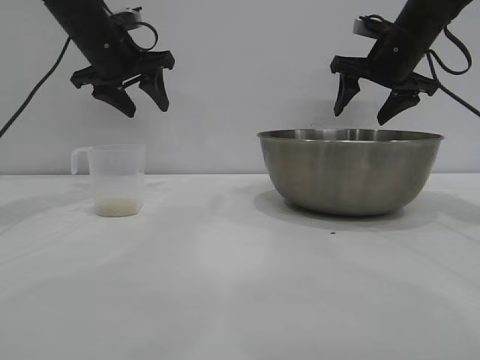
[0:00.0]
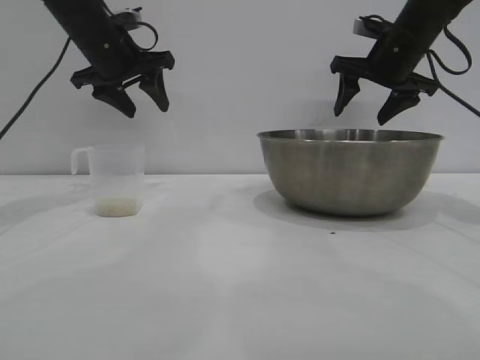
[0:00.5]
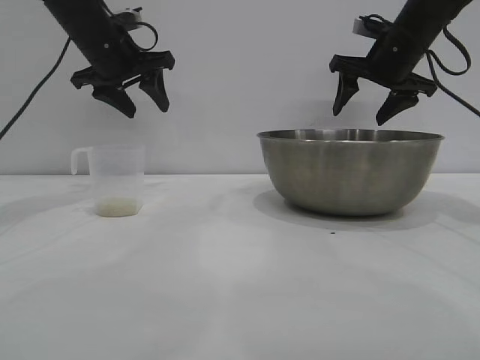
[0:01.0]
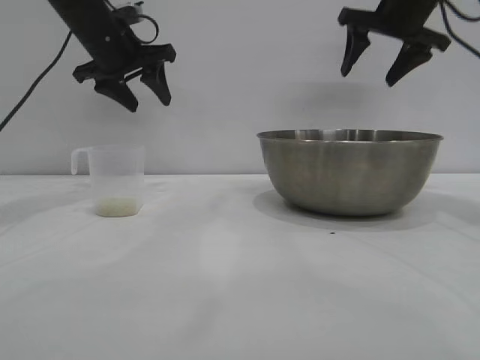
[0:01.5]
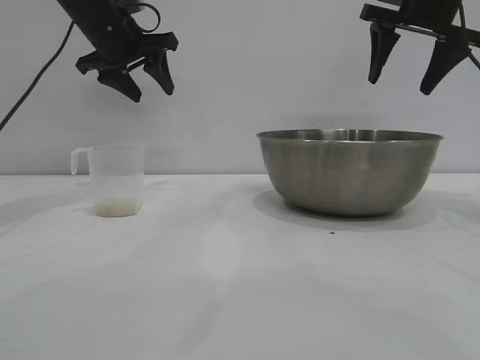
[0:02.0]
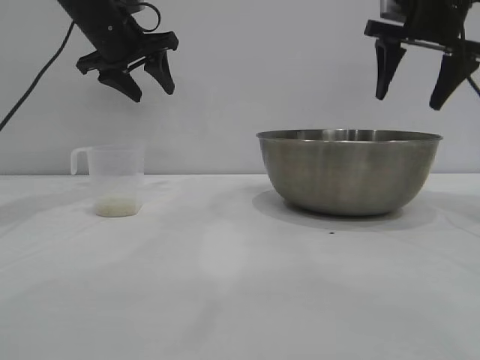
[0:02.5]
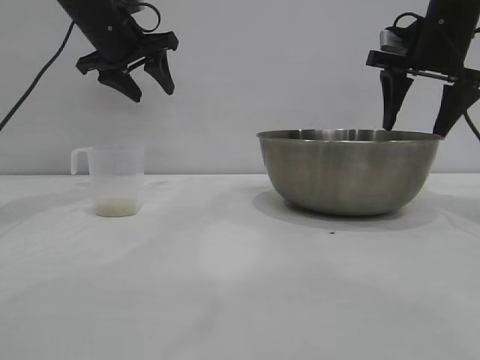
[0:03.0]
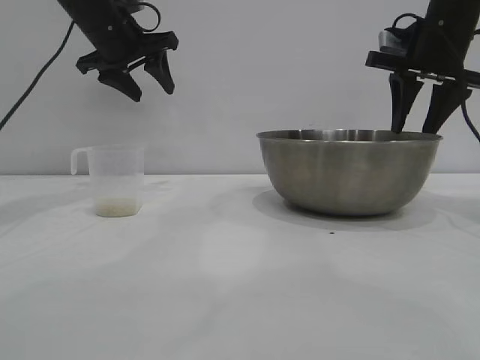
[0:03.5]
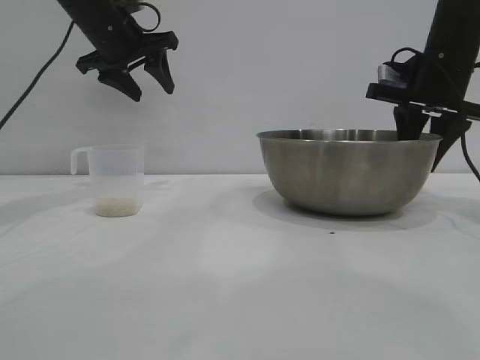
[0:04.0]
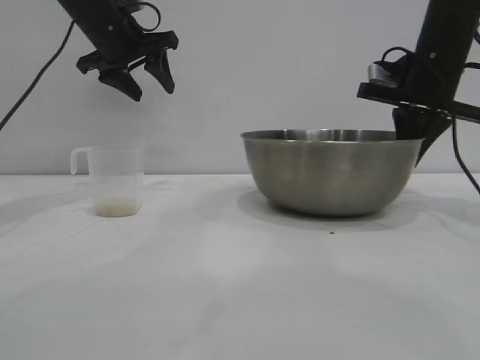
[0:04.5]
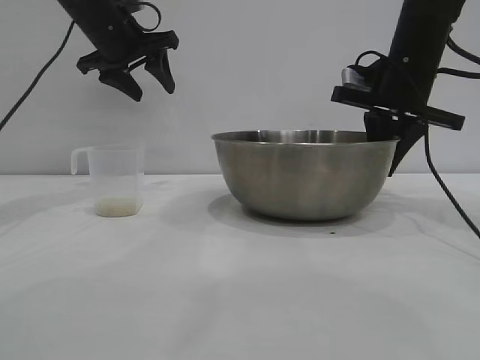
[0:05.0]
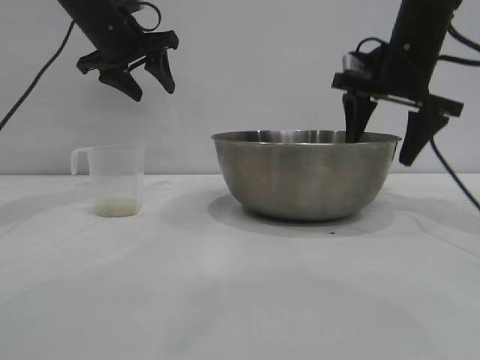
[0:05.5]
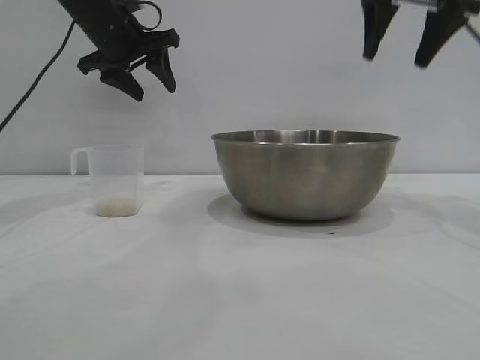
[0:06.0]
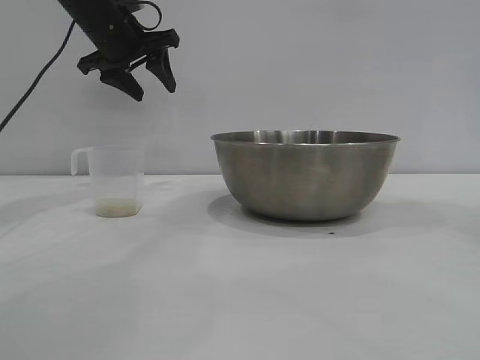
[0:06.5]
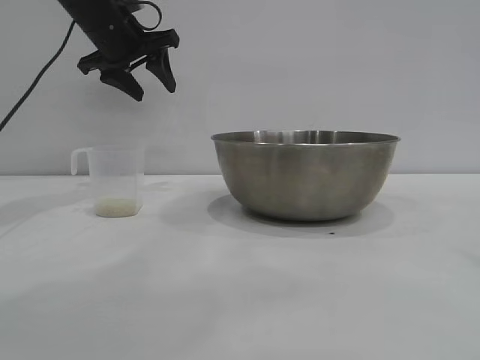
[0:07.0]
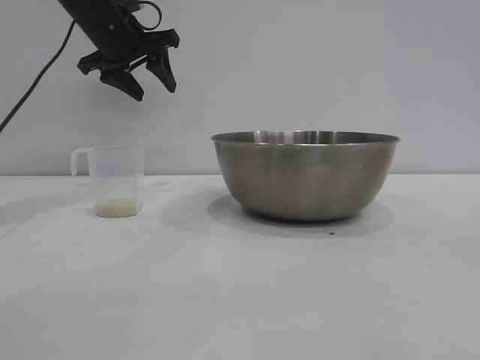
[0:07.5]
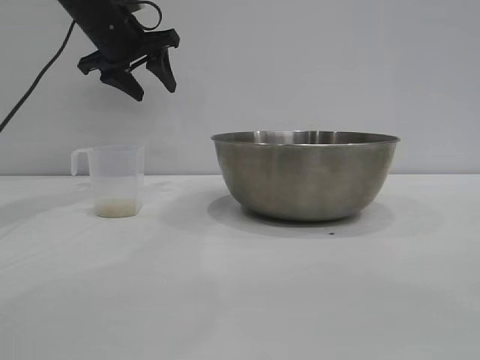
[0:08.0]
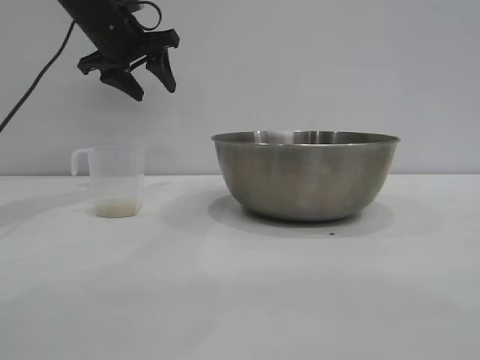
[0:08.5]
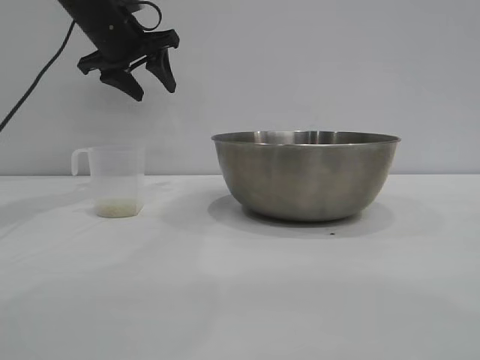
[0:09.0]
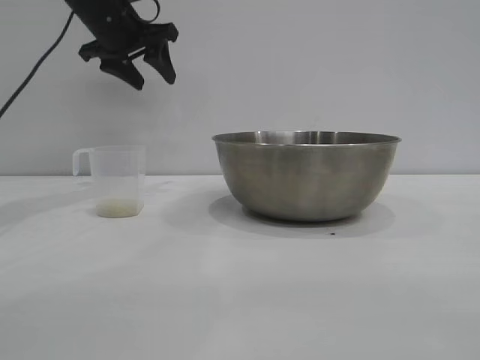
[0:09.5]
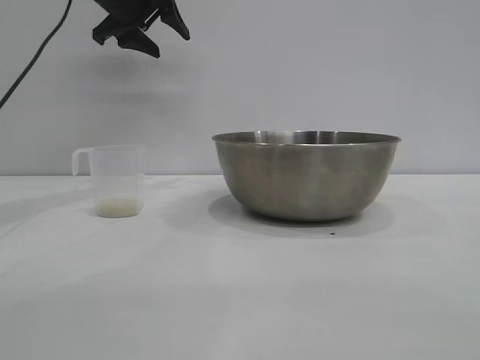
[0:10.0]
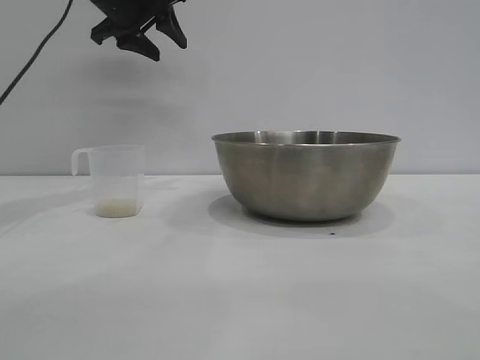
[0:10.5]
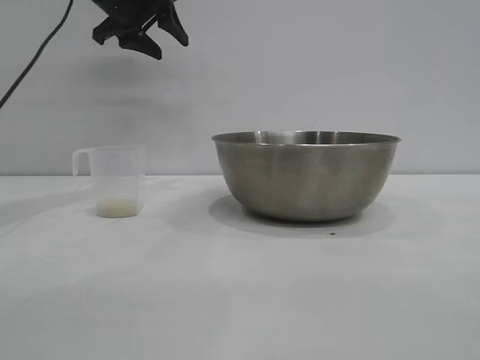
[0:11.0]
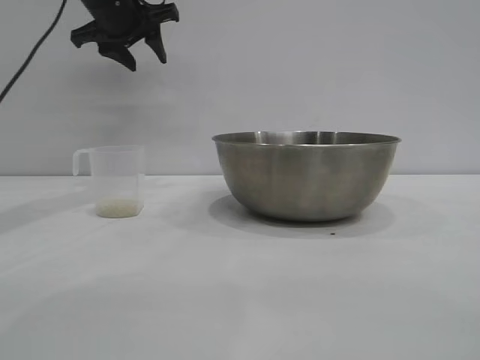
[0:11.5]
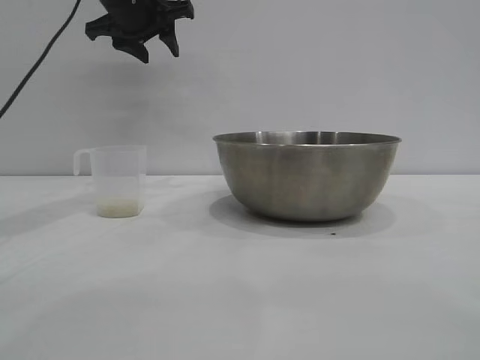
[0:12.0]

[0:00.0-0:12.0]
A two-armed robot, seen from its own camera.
Task of the whole recording: the right gripper grasp the rice container and place it in the center of the table, the left gripper grasp the rice scoop and pour the rice into the rice container.
Step, 0.0 to 5.5 s: Pick up the bowl with the right gripper.

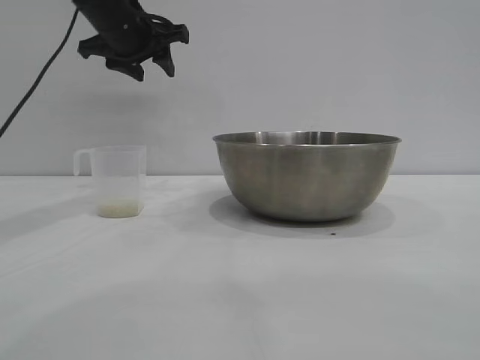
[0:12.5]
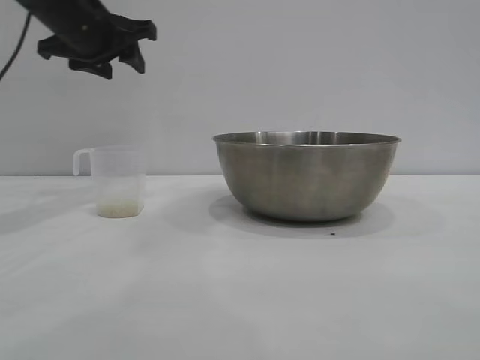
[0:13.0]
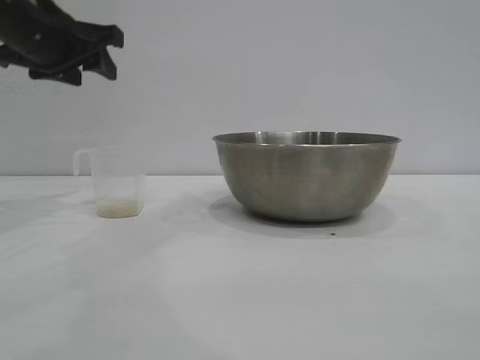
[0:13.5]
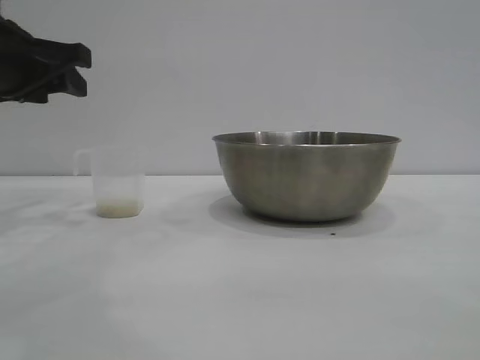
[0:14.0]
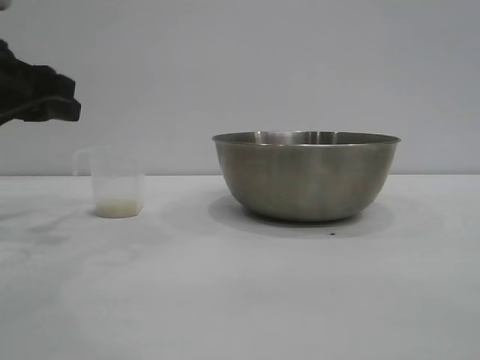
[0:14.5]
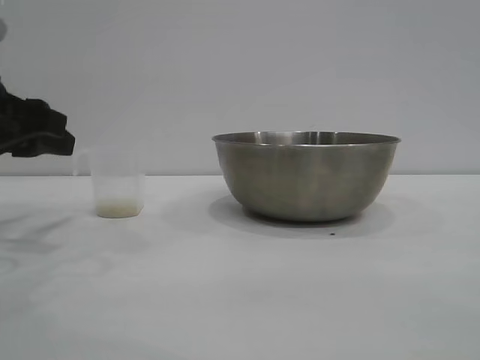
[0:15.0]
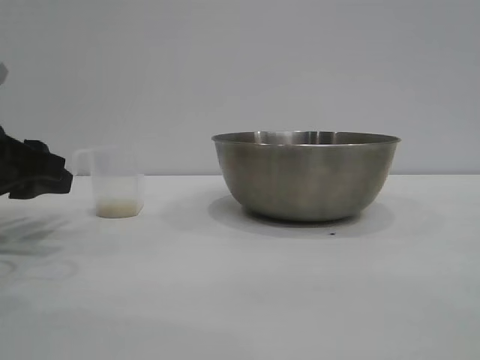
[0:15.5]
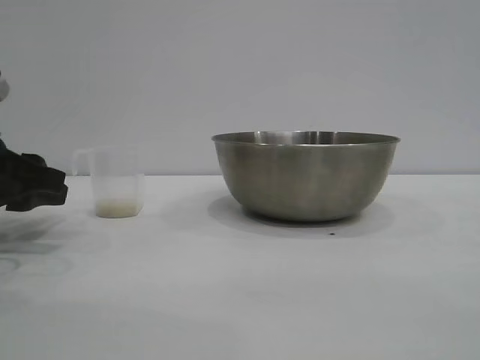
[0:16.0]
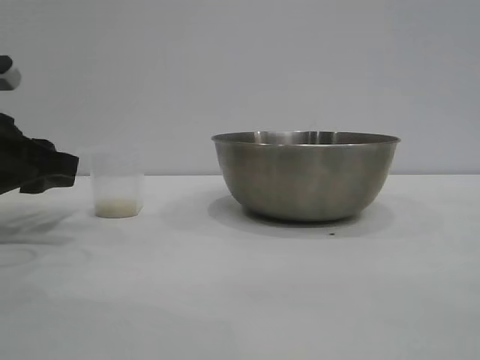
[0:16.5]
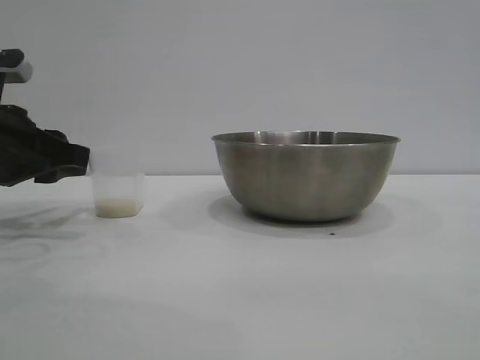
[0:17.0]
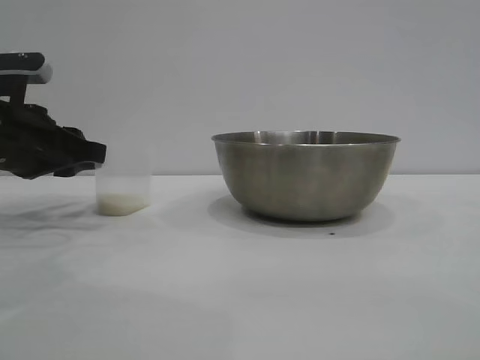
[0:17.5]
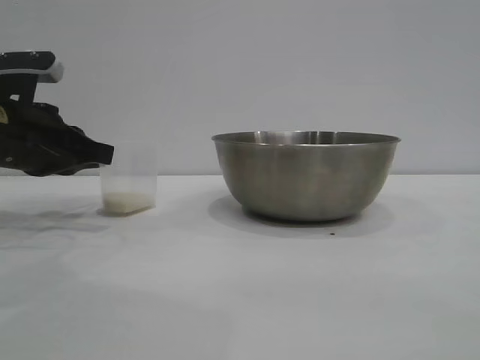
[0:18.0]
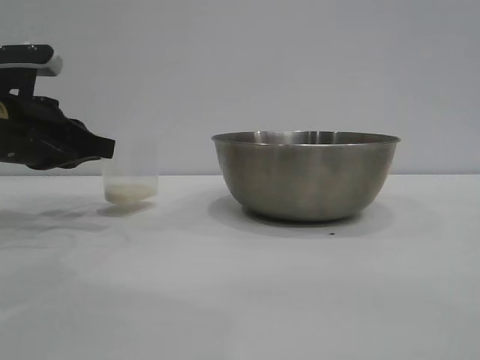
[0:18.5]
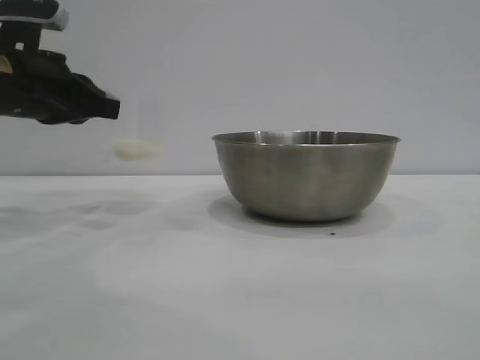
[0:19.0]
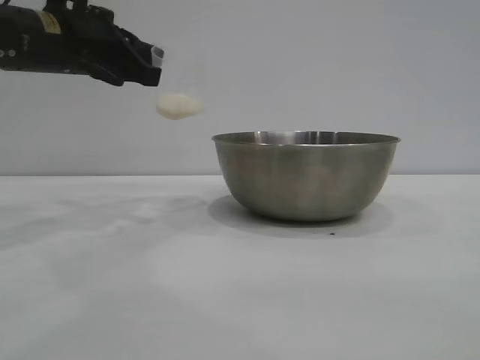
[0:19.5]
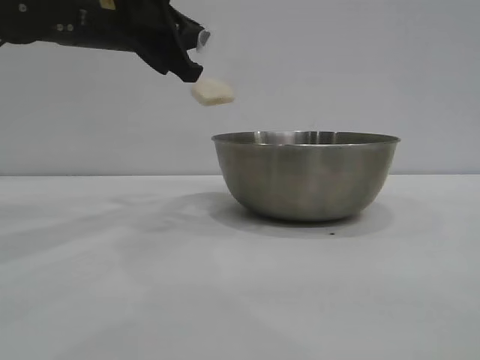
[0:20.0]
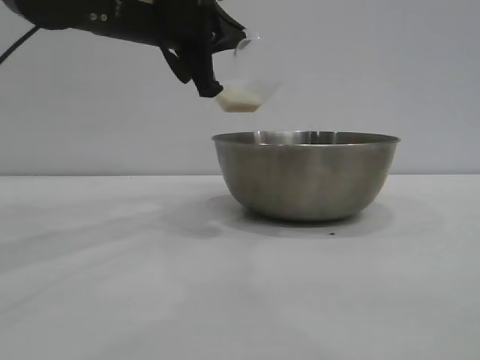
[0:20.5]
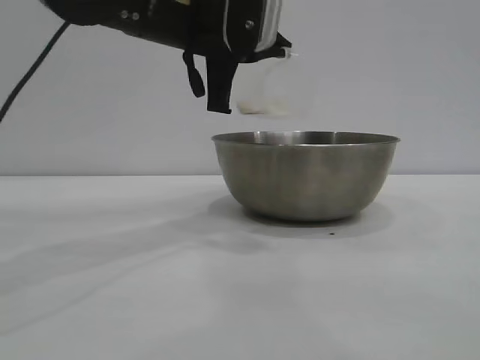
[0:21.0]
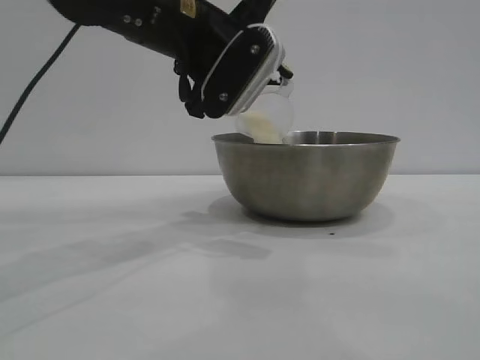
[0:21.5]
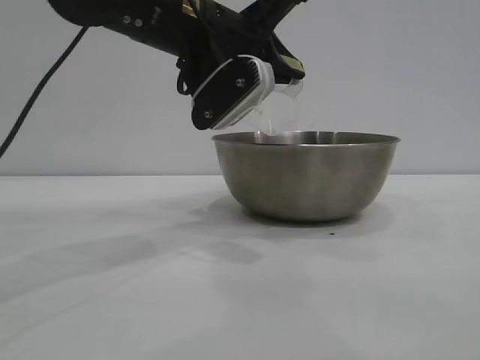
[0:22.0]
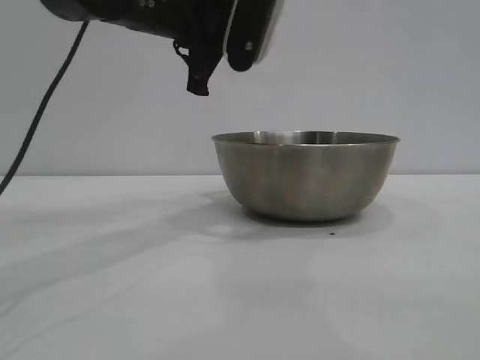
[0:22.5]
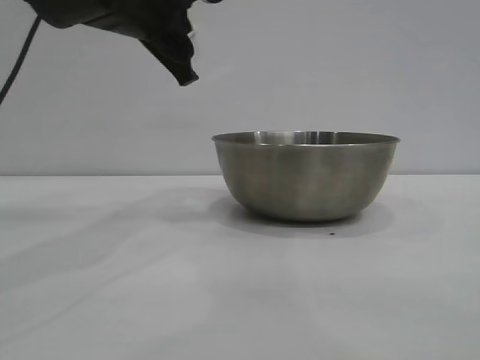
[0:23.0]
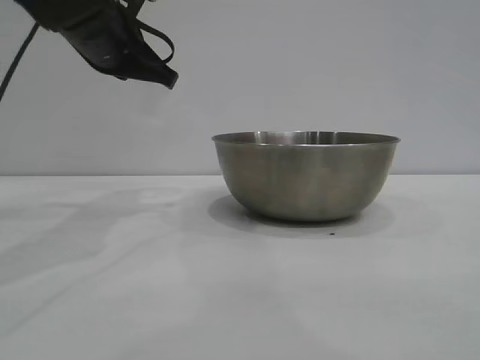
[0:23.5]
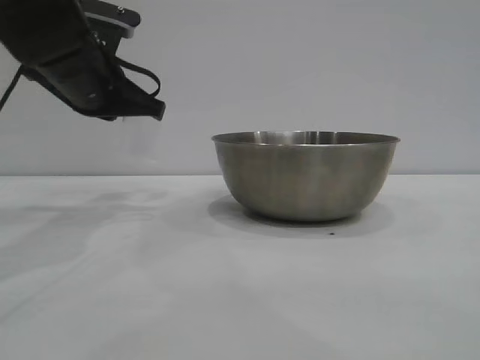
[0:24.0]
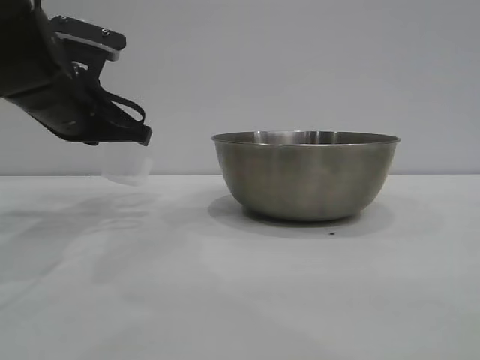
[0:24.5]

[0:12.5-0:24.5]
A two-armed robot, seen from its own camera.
Task of the whole recording: the right gripper grasp the rice container and place it in the center of the table, the left gripper grasp the rice scoop and pour the rice into the rice container.
Step, 12.5 to 19.0 s: Pick up the cup with rice in it with the left gripper.
Step, 19.5 to 22.0 s: Pour the rice from the cup into the bowl with the left gripper.

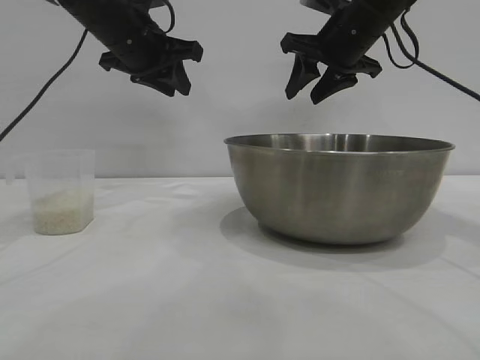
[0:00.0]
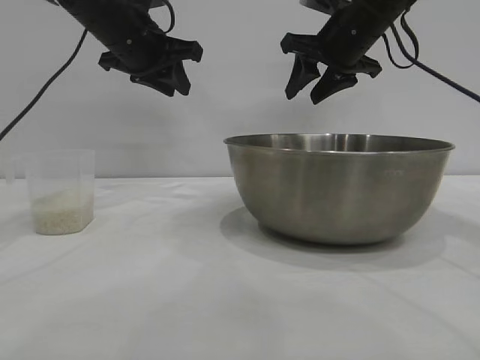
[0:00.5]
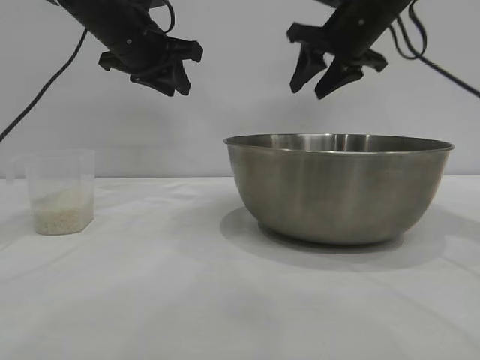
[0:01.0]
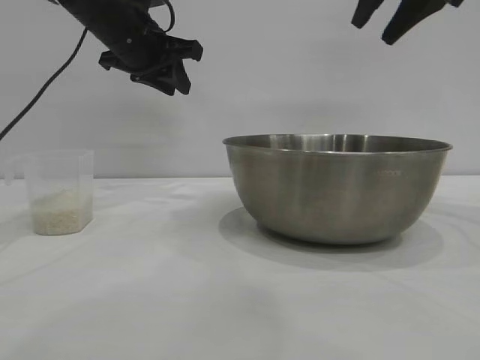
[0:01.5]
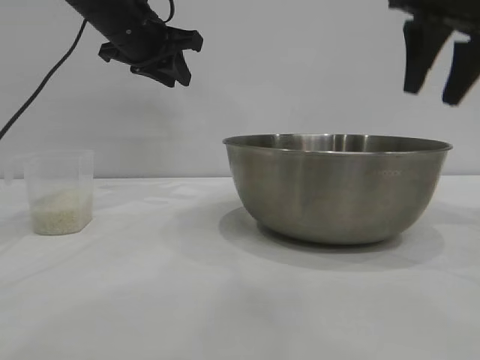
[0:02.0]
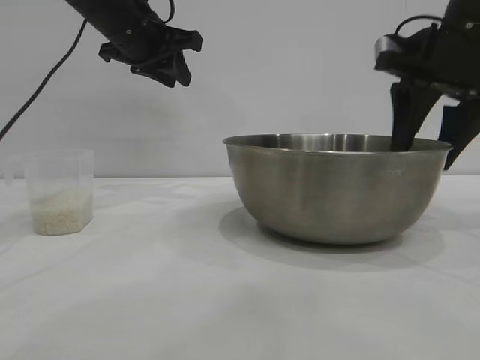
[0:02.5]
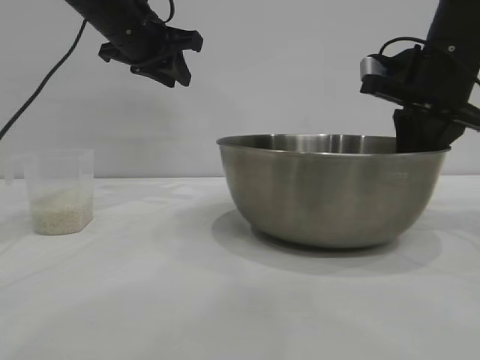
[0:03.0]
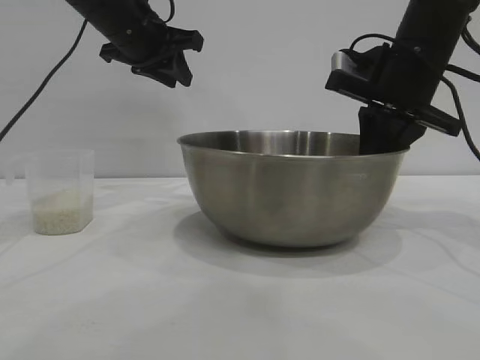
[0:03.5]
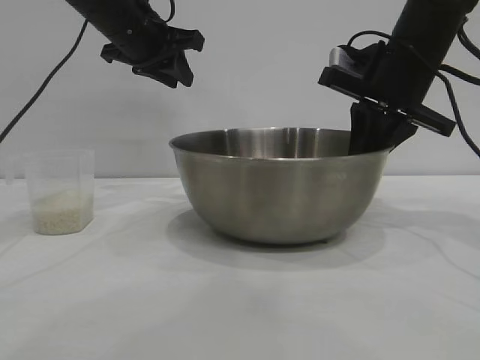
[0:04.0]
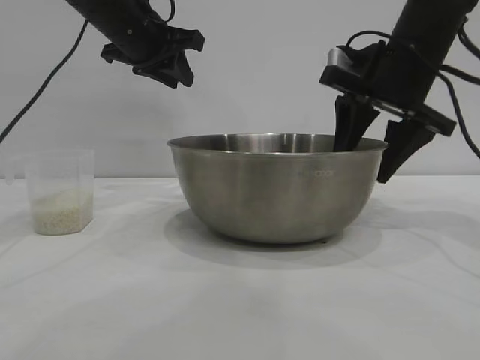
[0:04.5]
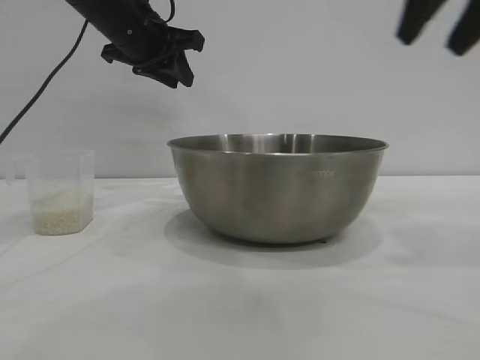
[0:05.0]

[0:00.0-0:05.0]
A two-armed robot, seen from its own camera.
Task of the whole recording: the right gripper grasp the rice container and place it in the center of the table, the left gripper grasp the rice scoop and pour the rice into the rice container.
Step, 0.0 to 4.5 s: Move the bowl to the center of view with the right gripper.
